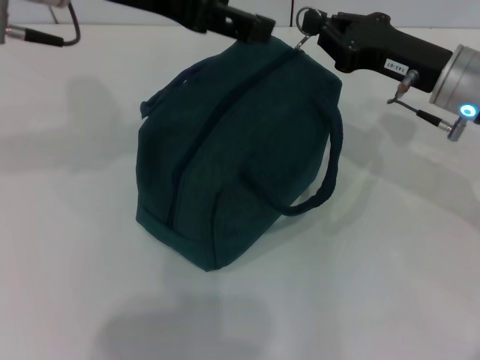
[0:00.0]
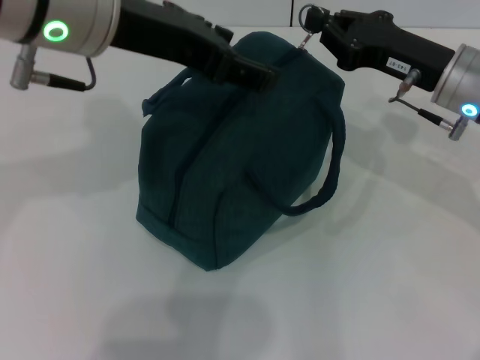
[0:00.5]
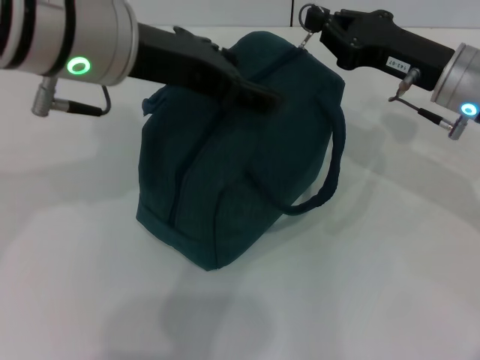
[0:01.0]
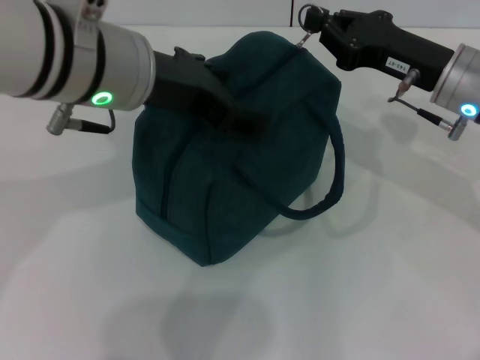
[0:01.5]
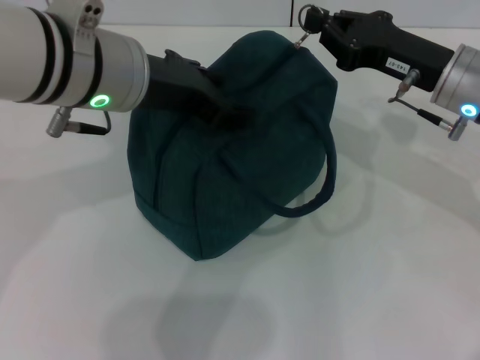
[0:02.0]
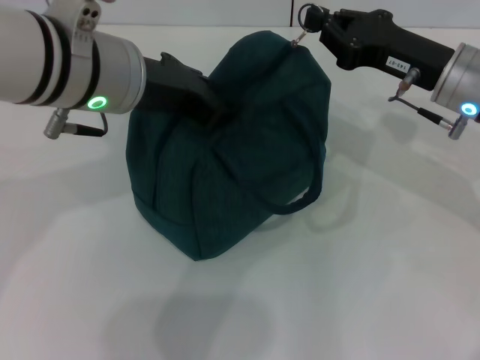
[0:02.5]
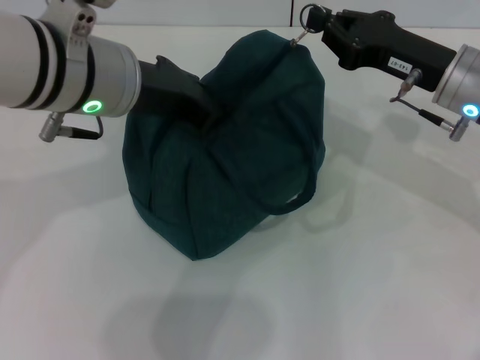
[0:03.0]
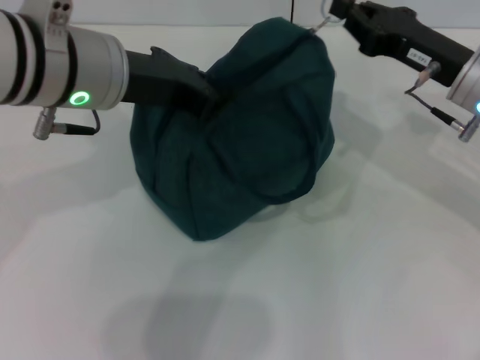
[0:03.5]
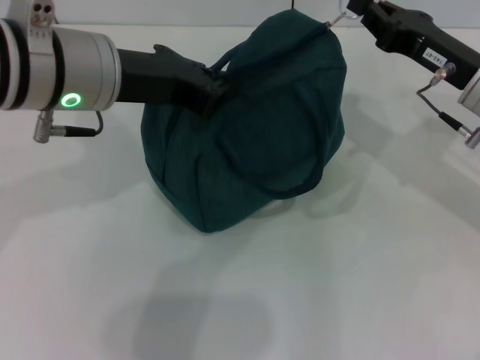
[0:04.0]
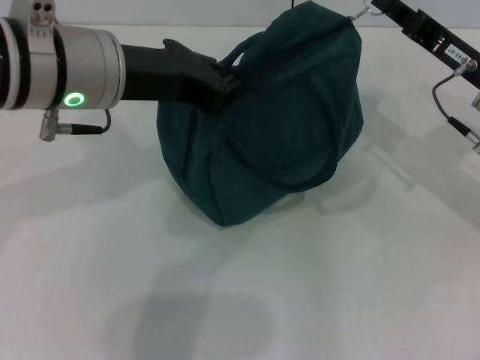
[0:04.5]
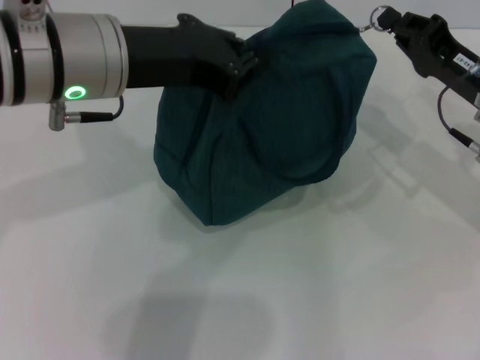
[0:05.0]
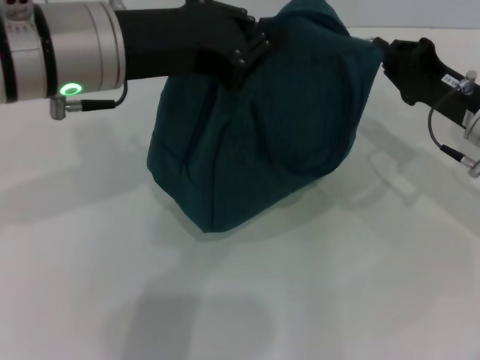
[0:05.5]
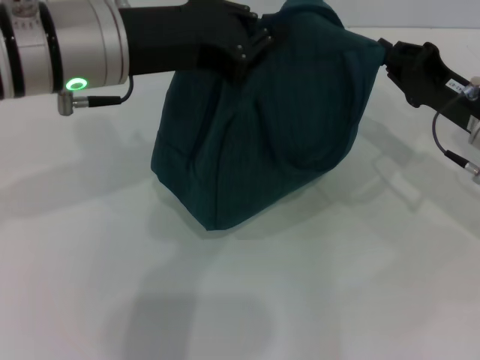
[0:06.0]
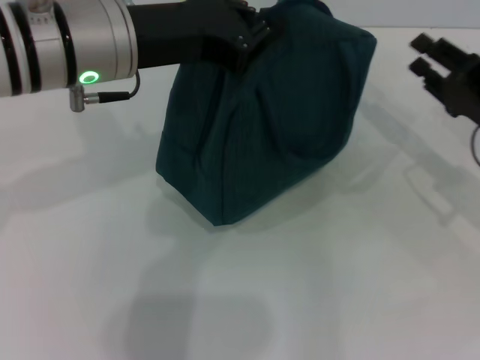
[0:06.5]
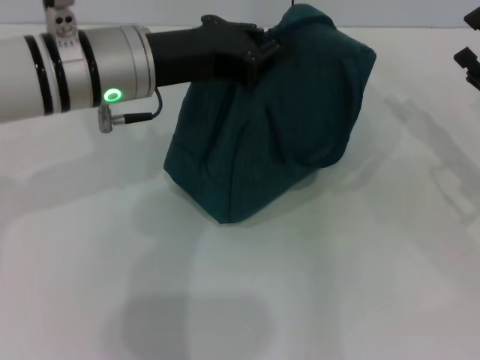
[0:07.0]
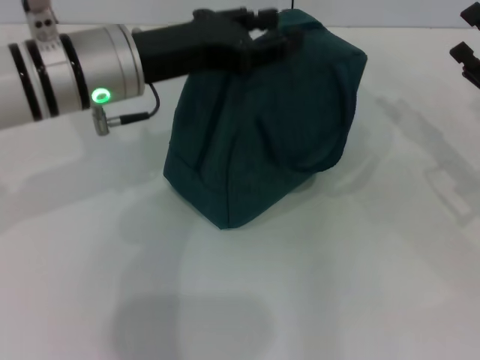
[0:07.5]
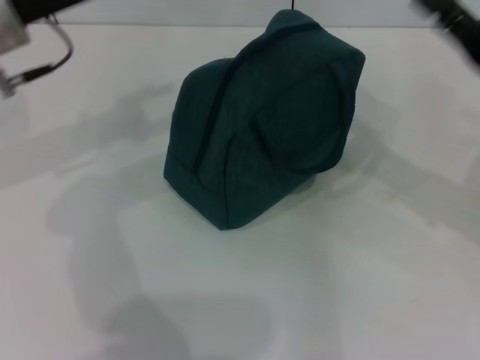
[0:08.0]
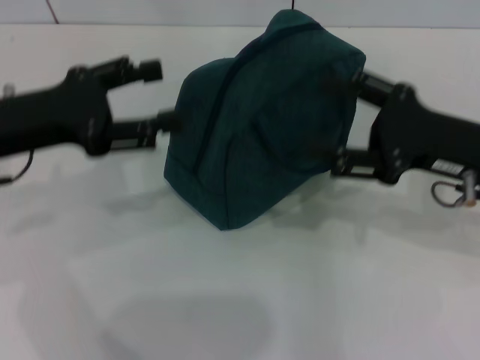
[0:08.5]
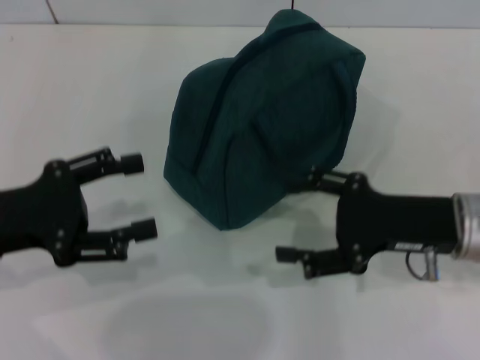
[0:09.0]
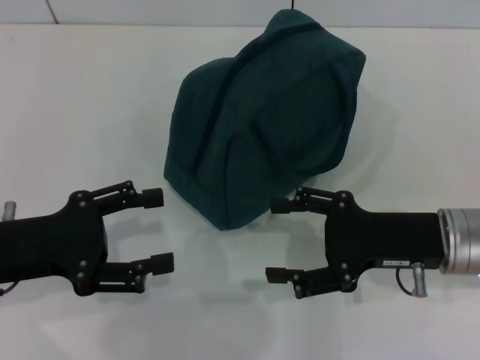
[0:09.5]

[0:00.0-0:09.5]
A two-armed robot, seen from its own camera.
Step, 0:00.0 to 0:06.0: Zip up the lunch bag with your right hand.
Step, 0:06.5 to 0:07.5: Hold the lunch bag with your left hand.
0:00.0 to 0:02.0: The left gripper heads downward, covering approximately 5 cm.
0:02.0 to 0:04.0: The left gripper closes.
0:05.5 to 0:07.5: The left gripper is displaced downward by about 5 cm, and opens its fingers, while the right gripper shifts approximately 5 cm to the right, and opens.
0:07.5 to 0:09.5: The right gripper travels to the left and backward by about 10 cm. The left gripper goes roughly 20 cm to the left, backward and downward, and opens its fingers.

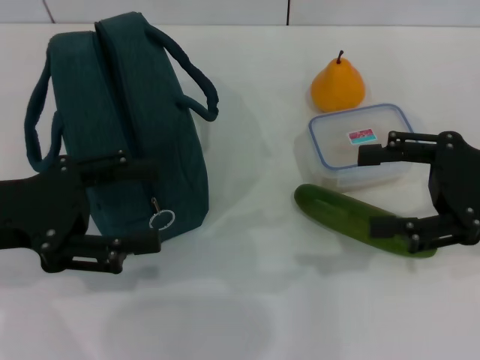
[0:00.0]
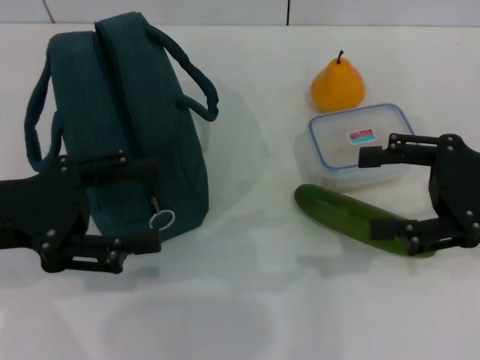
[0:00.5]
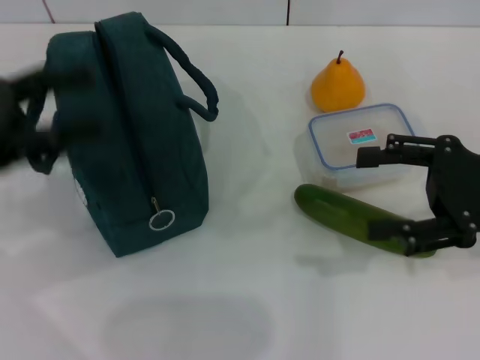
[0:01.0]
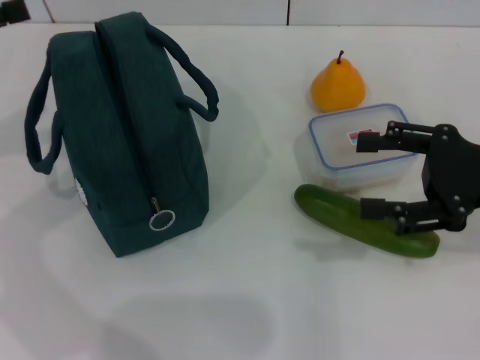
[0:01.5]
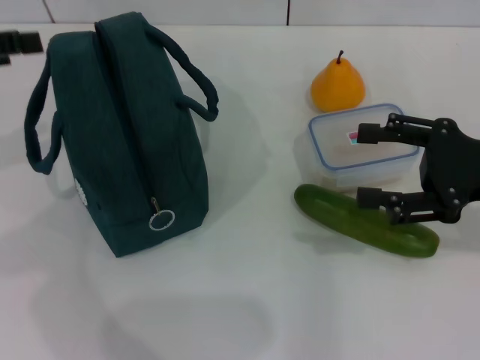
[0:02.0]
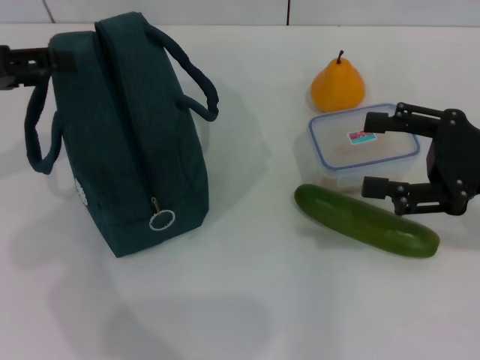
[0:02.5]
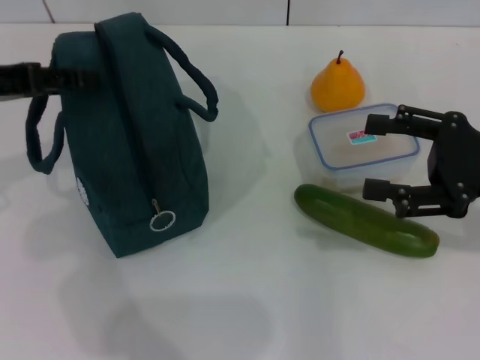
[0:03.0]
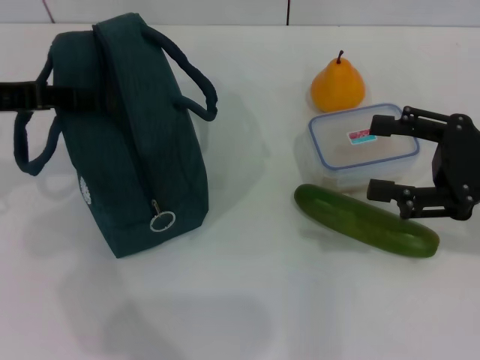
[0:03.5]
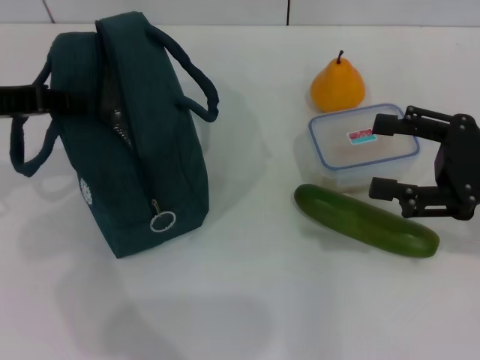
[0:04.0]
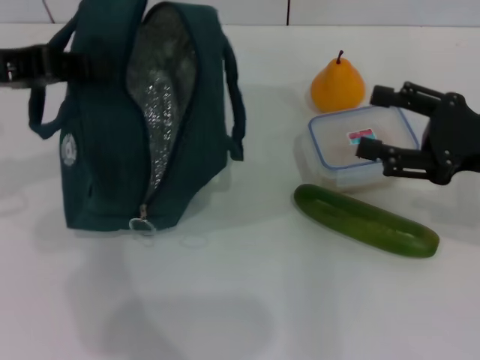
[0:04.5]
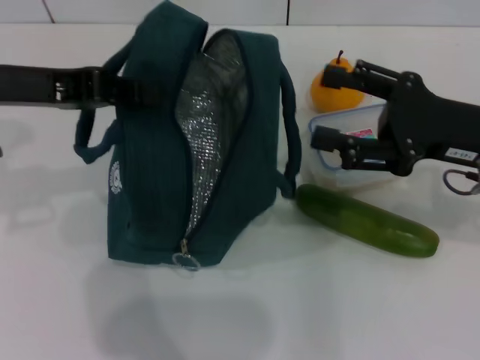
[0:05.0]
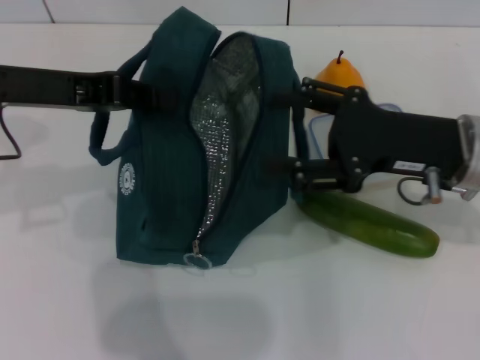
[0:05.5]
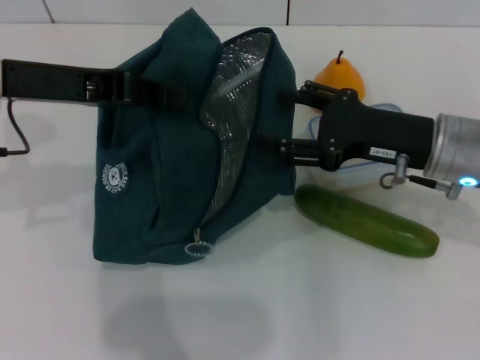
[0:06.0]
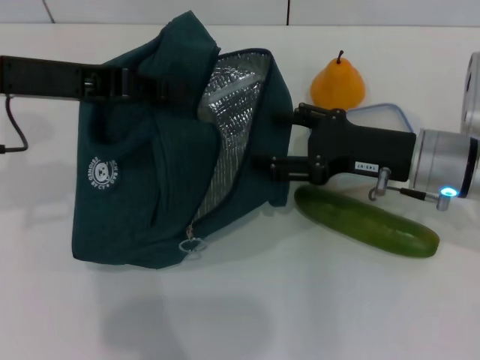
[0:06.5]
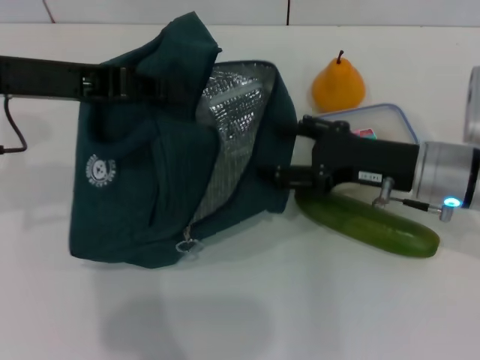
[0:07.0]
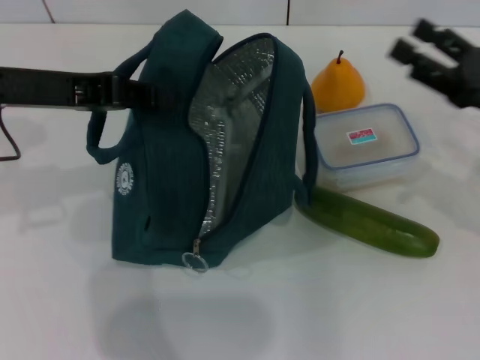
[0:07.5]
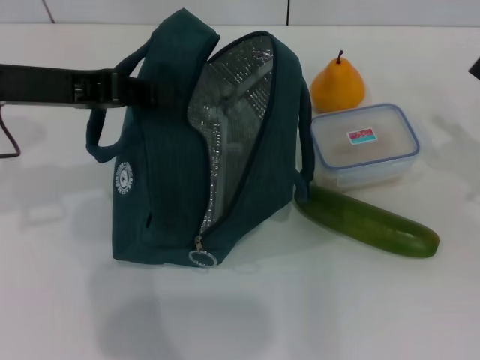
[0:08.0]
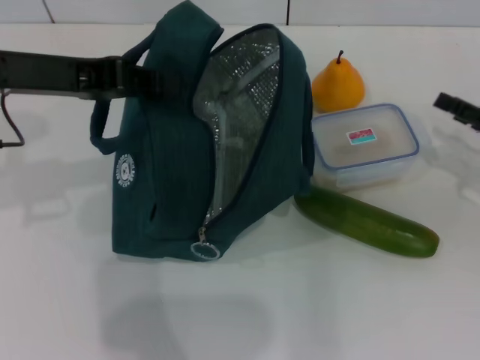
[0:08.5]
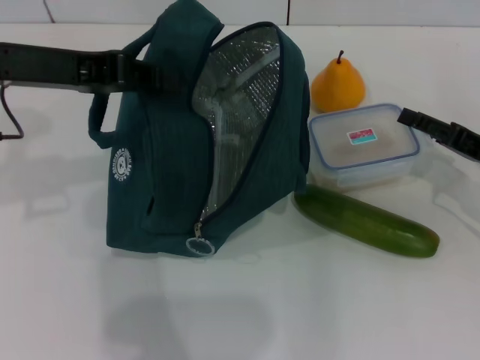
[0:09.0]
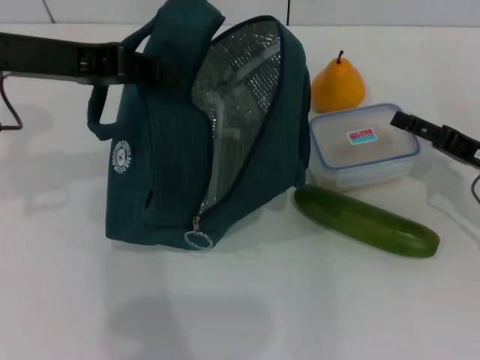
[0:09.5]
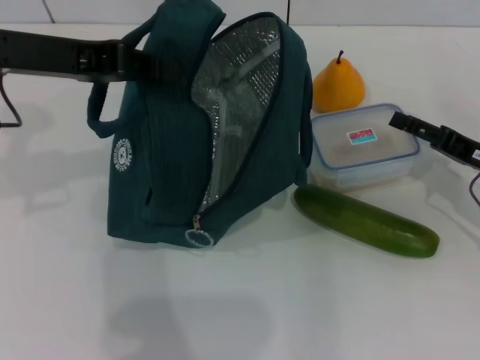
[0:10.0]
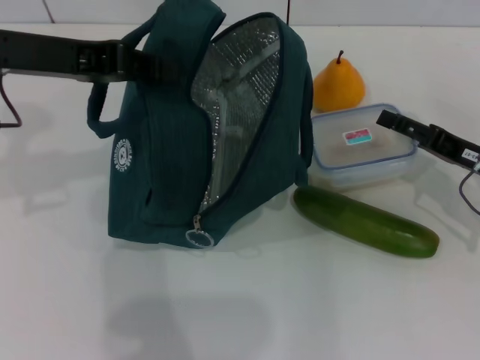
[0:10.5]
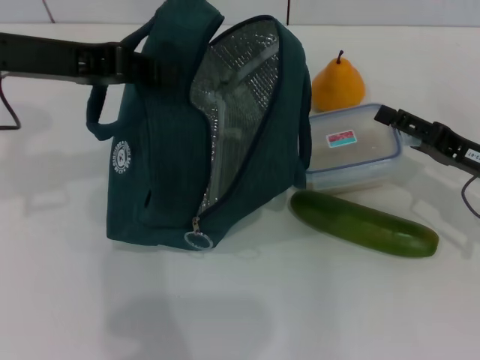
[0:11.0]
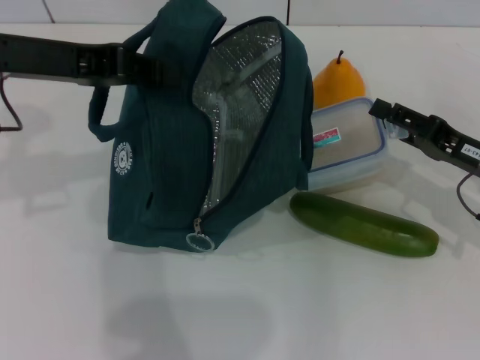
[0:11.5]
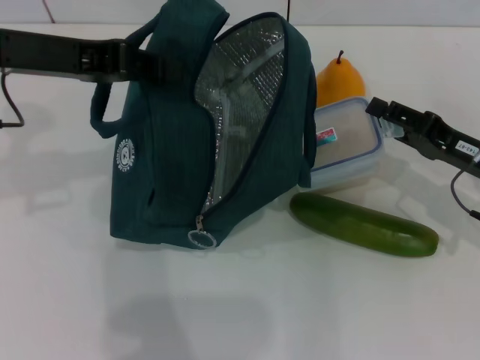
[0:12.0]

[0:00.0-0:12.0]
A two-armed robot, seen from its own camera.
Step, 0:00.0 to 0:04.0: Hold the lunch bag with your left hand.
0:00.0 to 0:02.0: The left gripper goes approximately 10 cm upward, to the left and forward.
0:02.0 to 0:04.0: The left gripper ends up roughly 5 cm from where it was, and closes.
0:04.0 to 0:06.0: The right gripper moves to the left, about 10 cm; the left gripper heads to the right, covering roughly 5 cm.
0:06.0 to 0:08.0: The right gripper travels to the right by roughly 15 cm.
0:08.0 to 0:10.0: The right gripper ends up some 5 cm from where it was.
0:10.0 to 0:12.0: There are only small adjustments of the grippers.

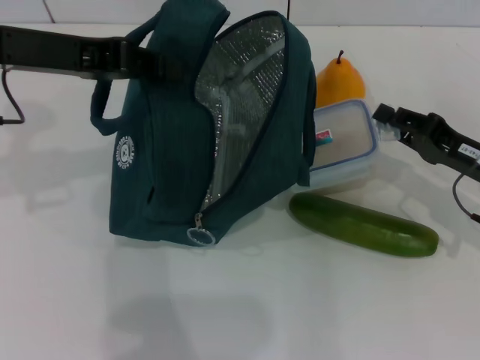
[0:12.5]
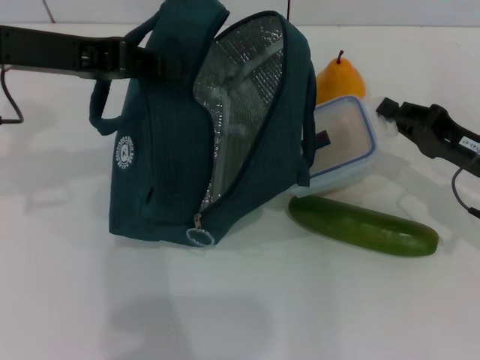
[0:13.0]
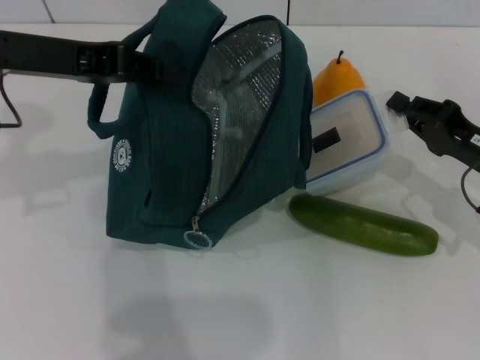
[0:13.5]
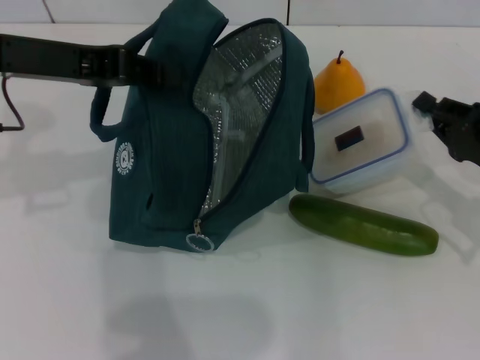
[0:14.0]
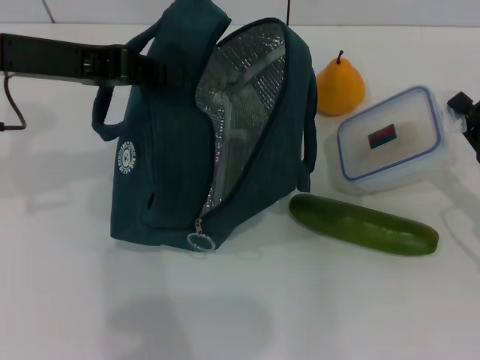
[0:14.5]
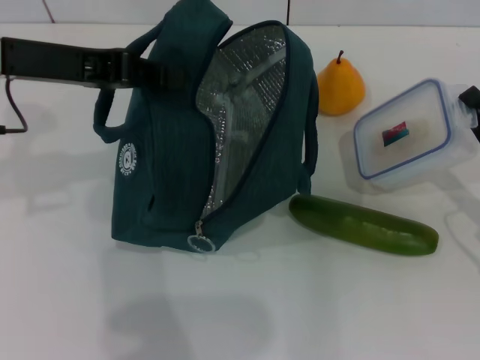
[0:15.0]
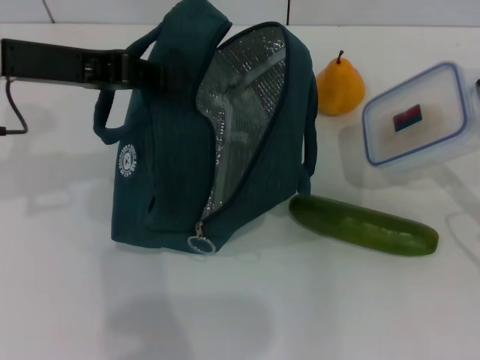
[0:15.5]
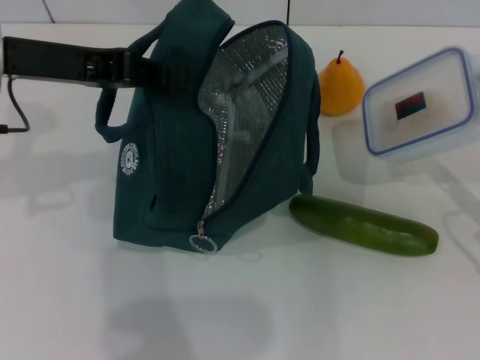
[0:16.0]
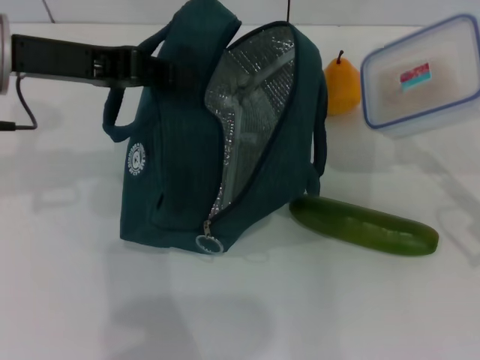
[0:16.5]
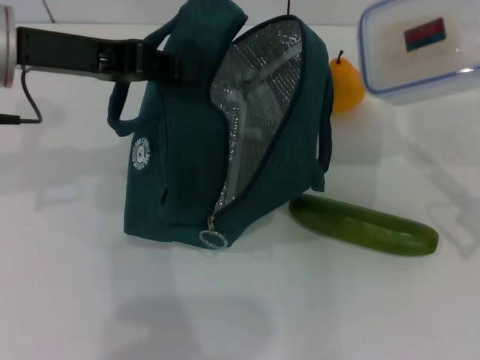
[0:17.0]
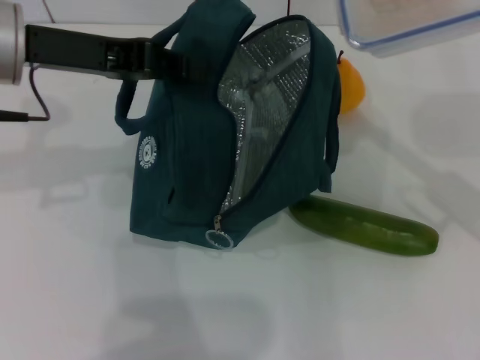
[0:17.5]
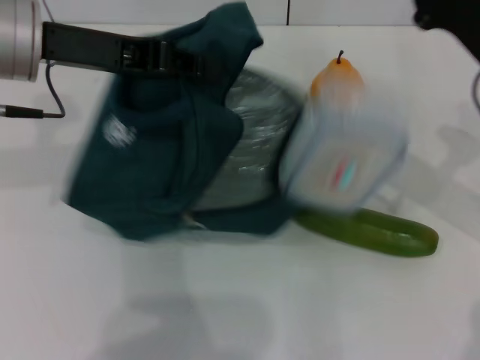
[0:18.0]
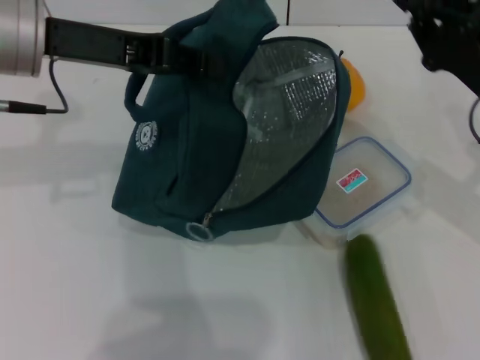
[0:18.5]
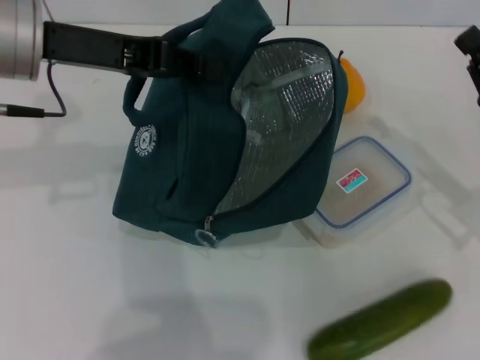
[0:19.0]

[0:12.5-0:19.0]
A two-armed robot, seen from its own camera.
0:12.5 to 0:14.5: The right gripper changes place by roughly 5 cm, and closes its fingers.
0:14.5 to 0:17.0: The right gripper is displaced upward by about 5 cm.
